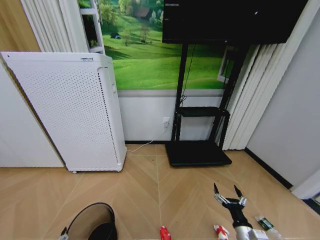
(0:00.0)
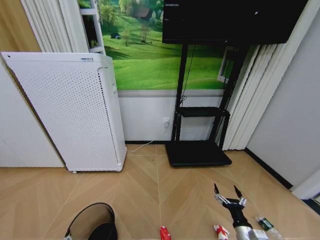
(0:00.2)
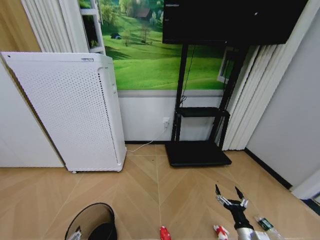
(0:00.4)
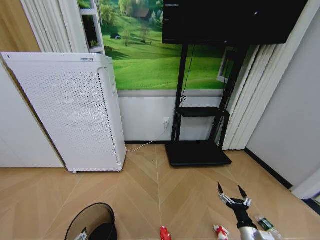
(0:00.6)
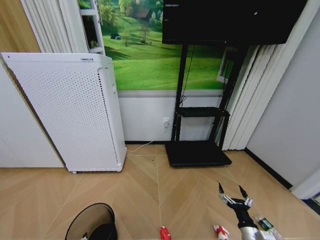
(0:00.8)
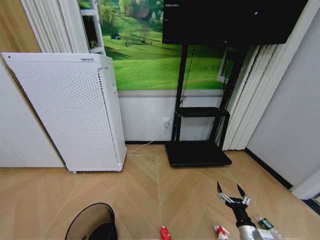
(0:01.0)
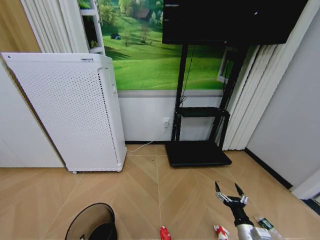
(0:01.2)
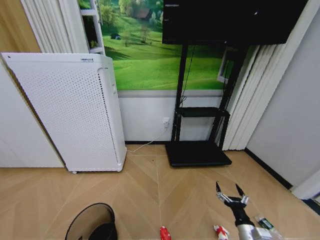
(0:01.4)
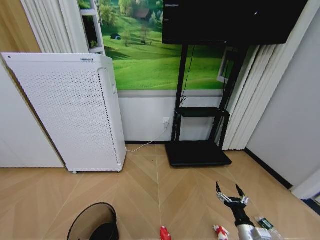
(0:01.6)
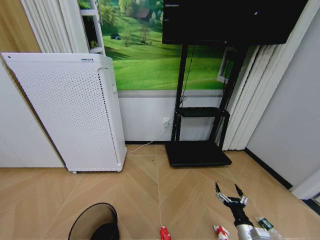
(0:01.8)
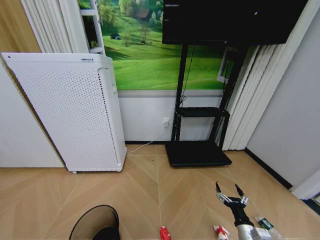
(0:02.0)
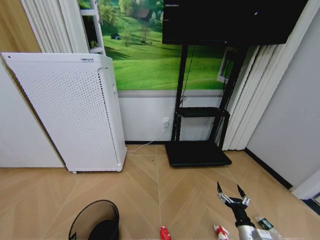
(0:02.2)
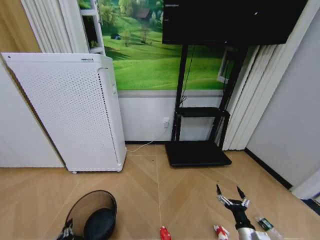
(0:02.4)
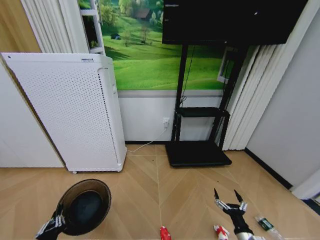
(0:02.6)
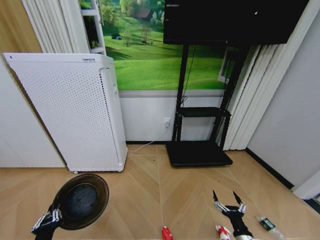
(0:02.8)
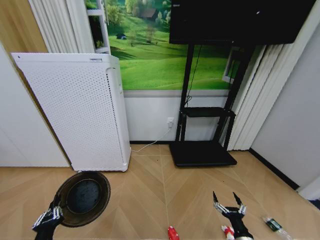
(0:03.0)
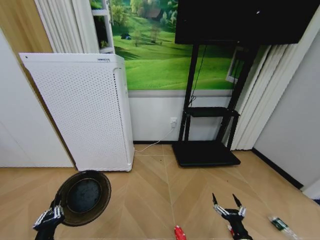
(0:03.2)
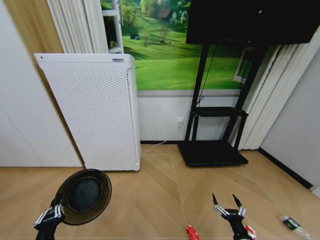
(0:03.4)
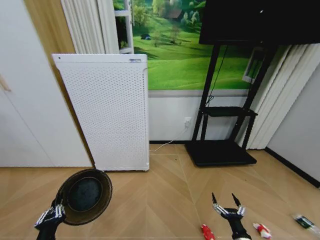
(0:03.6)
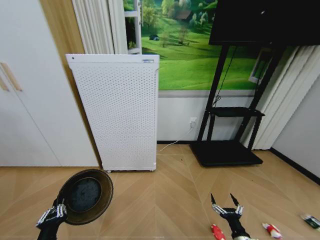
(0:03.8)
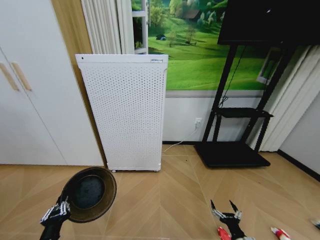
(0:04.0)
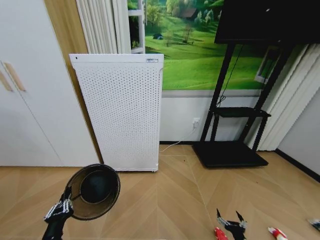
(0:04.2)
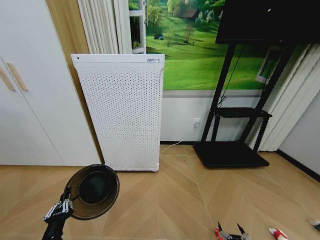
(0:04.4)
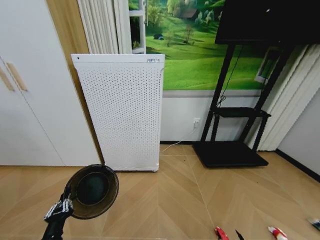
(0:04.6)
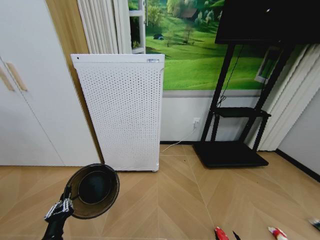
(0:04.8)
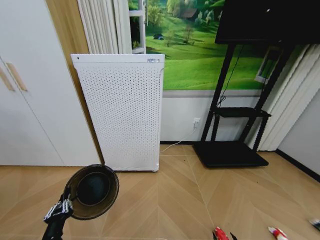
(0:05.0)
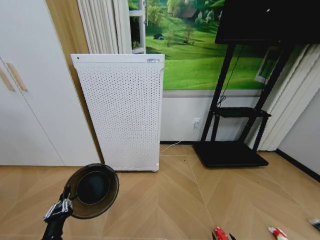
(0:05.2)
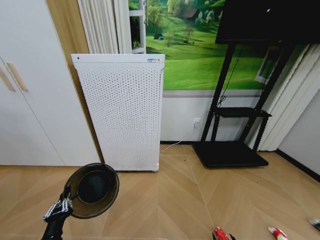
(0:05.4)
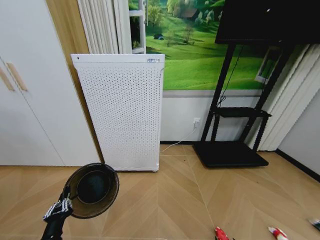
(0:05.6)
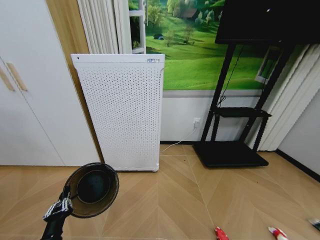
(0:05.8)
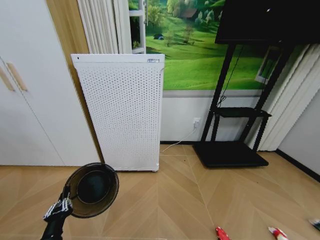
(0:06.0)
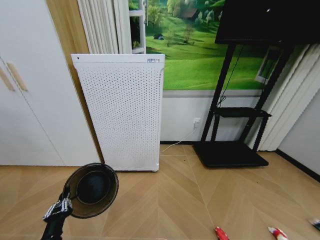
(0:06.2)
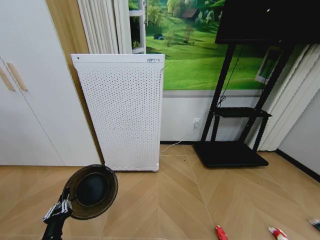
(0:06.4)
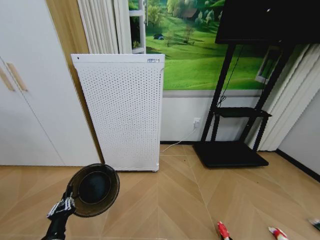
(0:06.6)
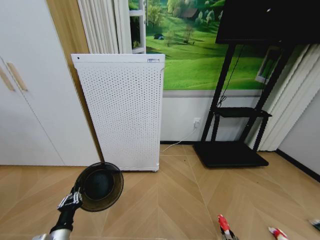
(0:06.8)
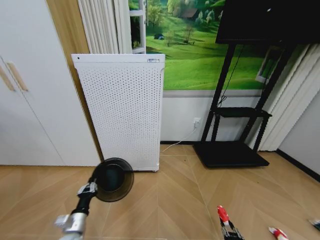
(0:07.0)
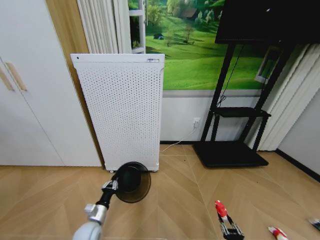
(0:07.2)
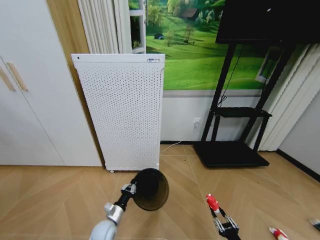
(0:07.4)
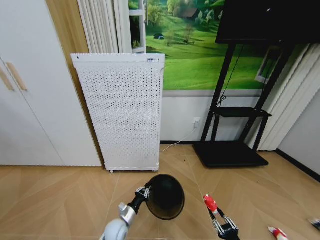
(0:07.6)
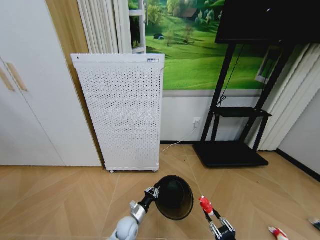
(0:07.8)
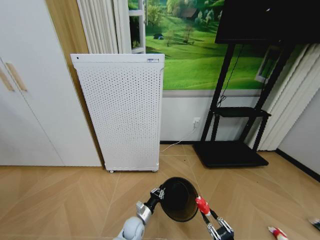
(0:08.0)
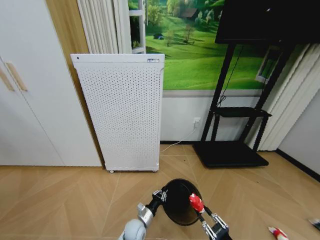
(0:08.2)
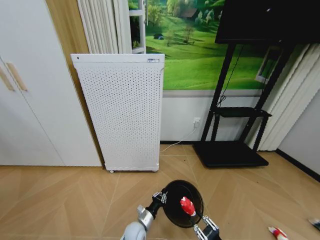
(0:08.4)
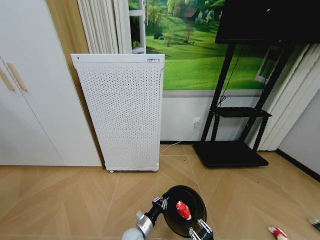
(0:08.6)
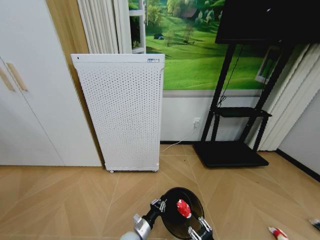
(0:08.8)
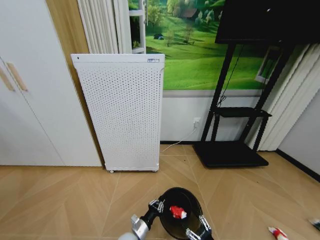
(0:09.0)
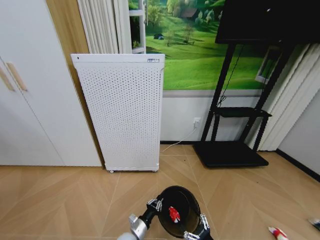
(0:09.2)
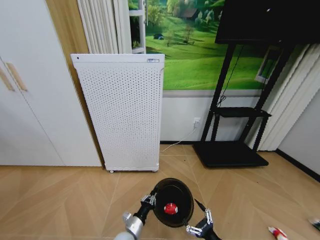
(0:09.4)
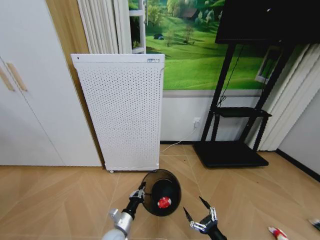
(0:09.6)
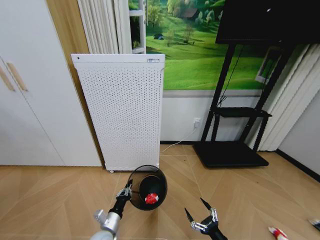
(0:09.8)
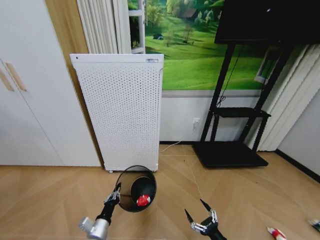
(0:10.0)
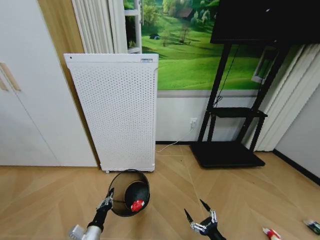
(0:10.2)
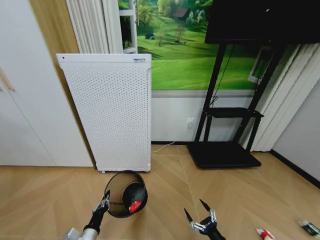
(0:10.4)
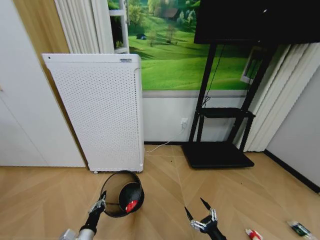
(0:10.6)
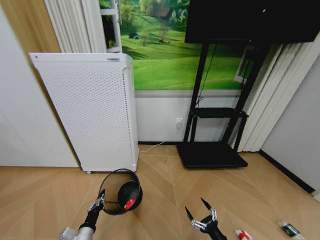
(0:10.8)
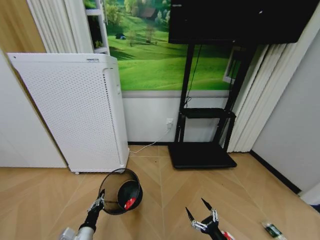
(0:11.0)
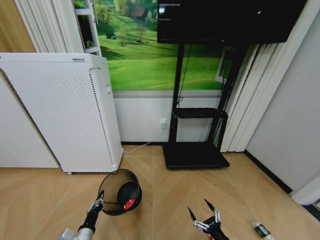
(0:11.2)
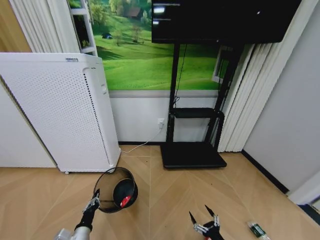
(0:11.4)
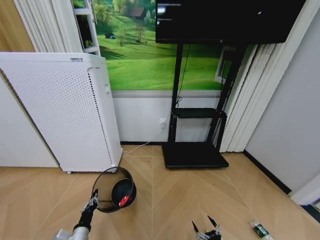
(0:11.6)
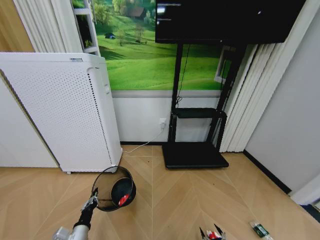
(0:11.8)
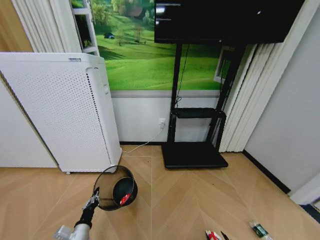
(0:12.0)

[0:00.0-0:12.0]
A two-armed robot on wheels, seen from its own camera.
Task of the whole recording: Pick up the trash bin and place the garbage on the floor into it.
0:00.0 to 0:01.6: The left gripper is displaced downward by roughly 10 cm, and closes its fingers.
0:03.0 to 0:04.4: The right gripper is displaced downward by approximately 10 cm.
0:04.4 to 0:06.0: The right gripper goes some 10 cm downward.
0:06.0 to 0:07.6: The left gripper is displaced forward, downward and to the right by roughly 25 cm. Meanwhile the right gripper shifts roughly 15 cm upward, and closes its fingers.
0:07.6 to 0:09.0: The left gripper shifts some 5 cm to the right. The right gripper shifts about 5 cm to the left.
0:09.0 to 0:10.4: The right gripper opens up; the left gripper heads to the left, upward and backward, covering roughly 20 cm.
0:10.4 to 0:12.0: The right gripper moves downward and to the right, about 15 cm.

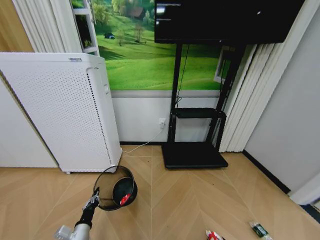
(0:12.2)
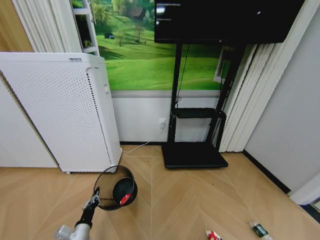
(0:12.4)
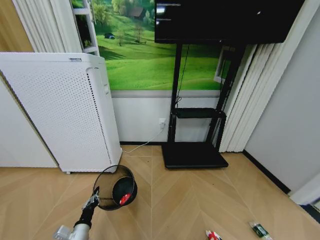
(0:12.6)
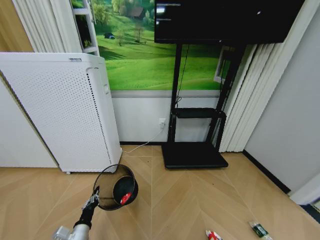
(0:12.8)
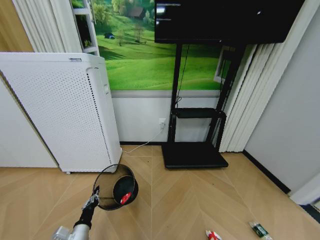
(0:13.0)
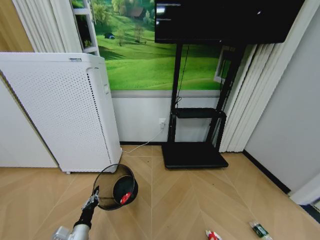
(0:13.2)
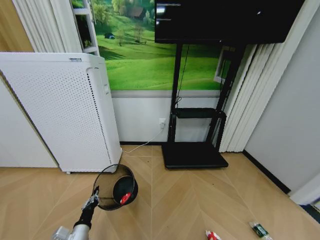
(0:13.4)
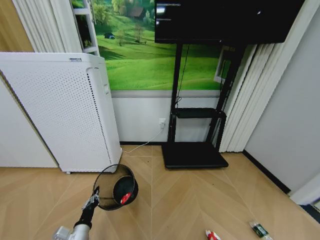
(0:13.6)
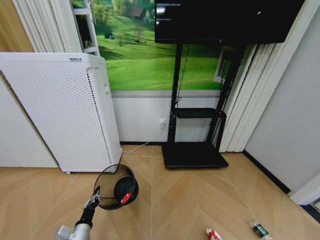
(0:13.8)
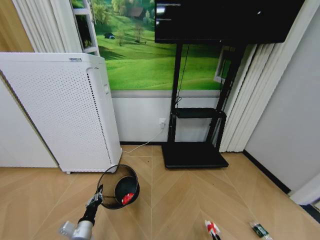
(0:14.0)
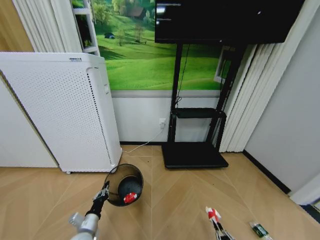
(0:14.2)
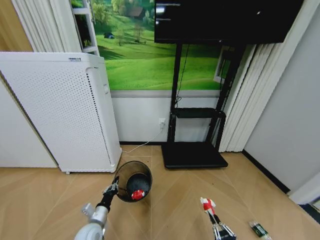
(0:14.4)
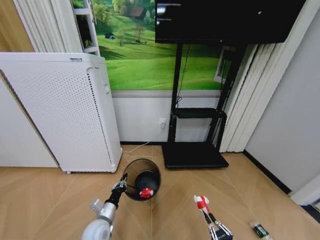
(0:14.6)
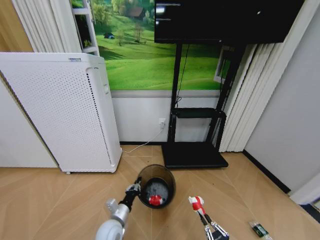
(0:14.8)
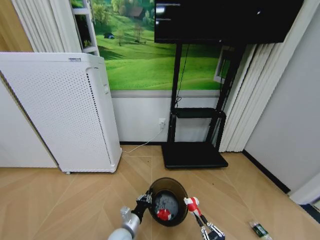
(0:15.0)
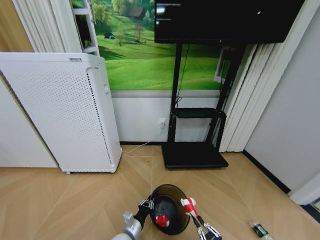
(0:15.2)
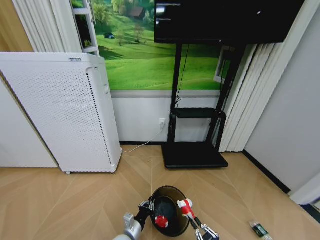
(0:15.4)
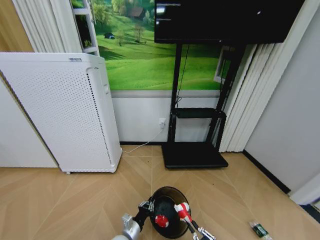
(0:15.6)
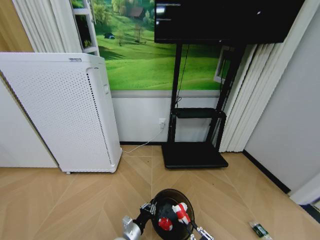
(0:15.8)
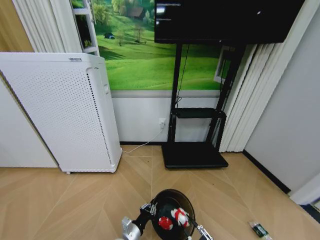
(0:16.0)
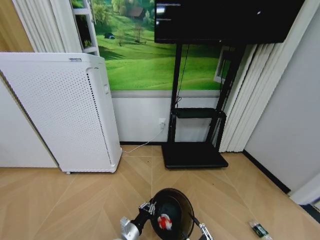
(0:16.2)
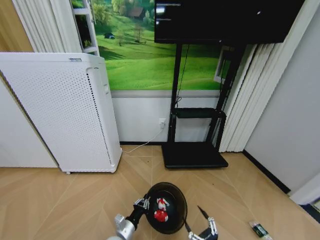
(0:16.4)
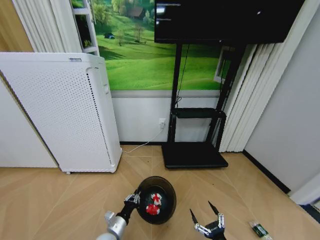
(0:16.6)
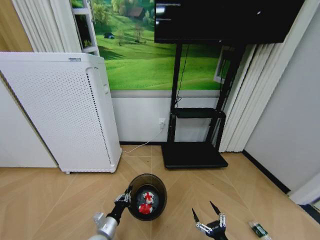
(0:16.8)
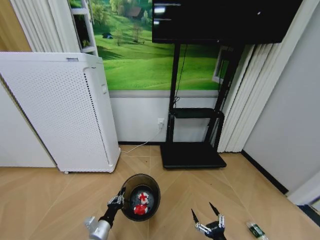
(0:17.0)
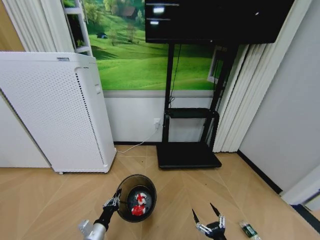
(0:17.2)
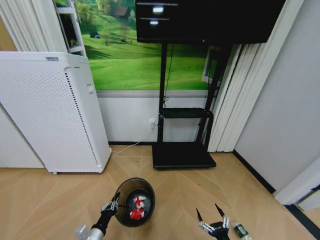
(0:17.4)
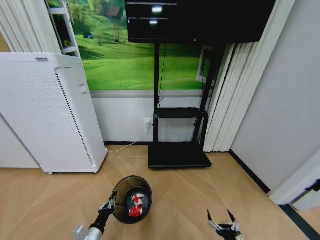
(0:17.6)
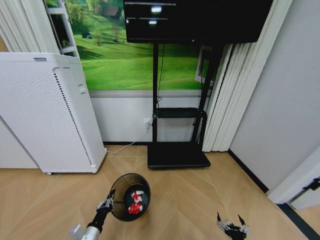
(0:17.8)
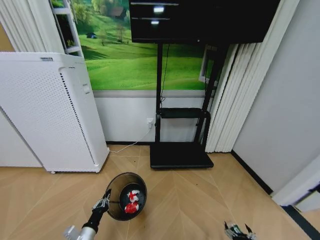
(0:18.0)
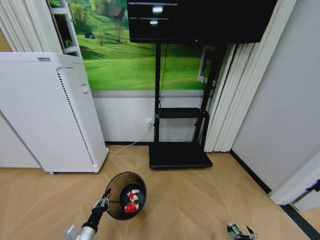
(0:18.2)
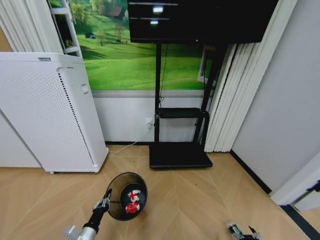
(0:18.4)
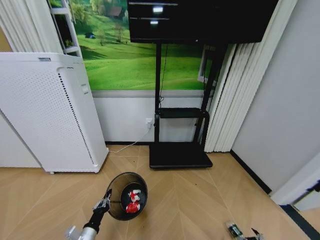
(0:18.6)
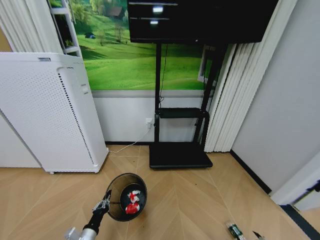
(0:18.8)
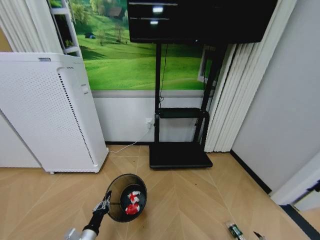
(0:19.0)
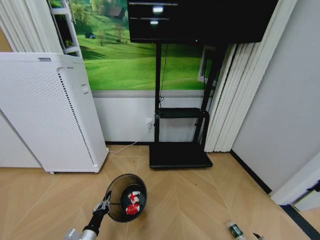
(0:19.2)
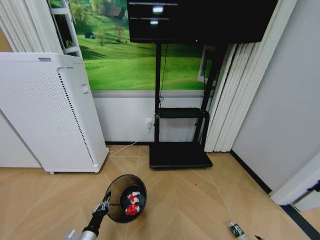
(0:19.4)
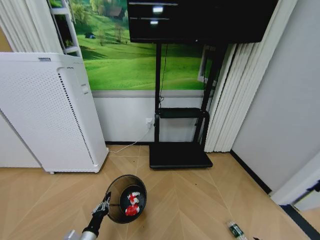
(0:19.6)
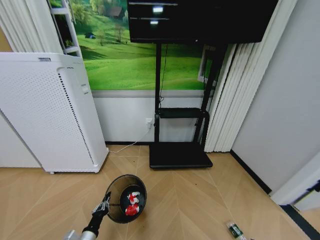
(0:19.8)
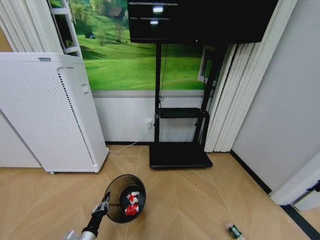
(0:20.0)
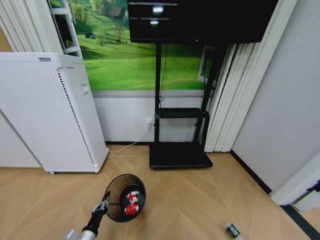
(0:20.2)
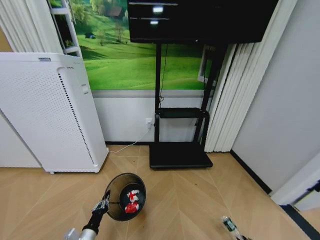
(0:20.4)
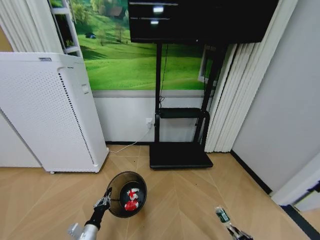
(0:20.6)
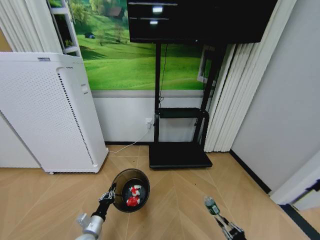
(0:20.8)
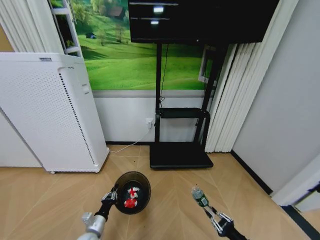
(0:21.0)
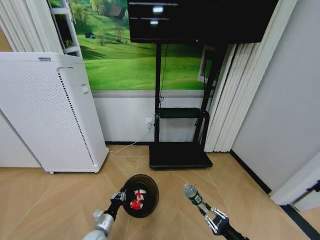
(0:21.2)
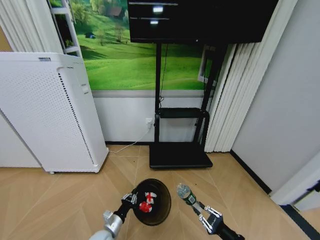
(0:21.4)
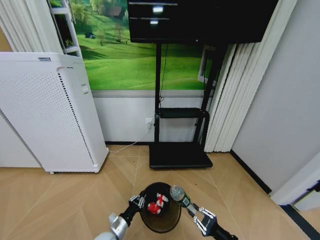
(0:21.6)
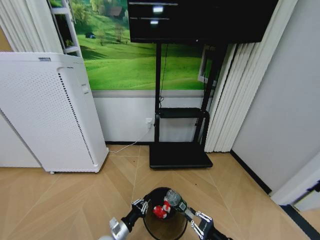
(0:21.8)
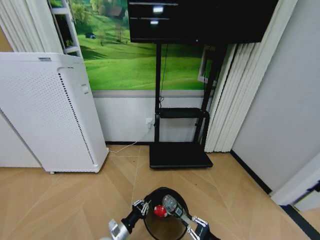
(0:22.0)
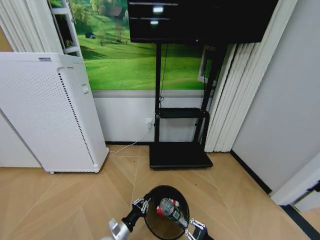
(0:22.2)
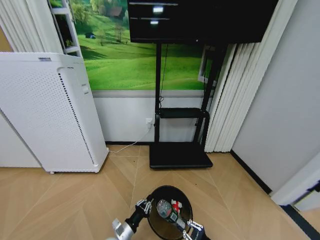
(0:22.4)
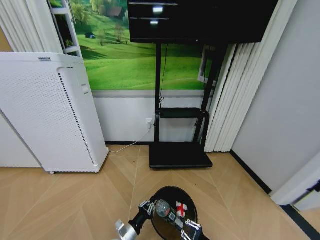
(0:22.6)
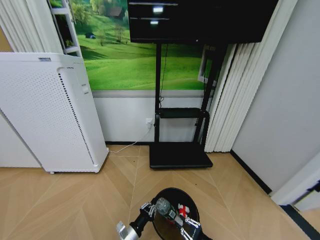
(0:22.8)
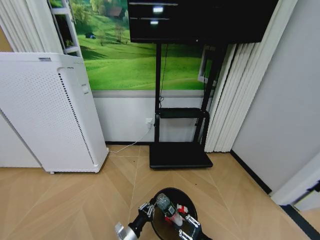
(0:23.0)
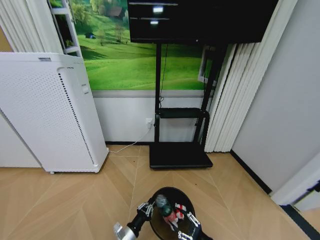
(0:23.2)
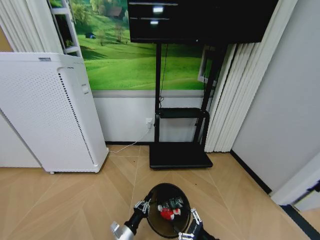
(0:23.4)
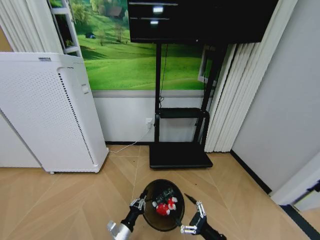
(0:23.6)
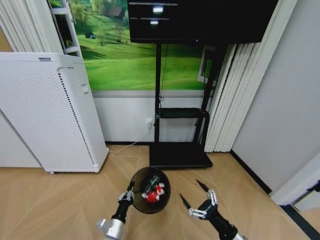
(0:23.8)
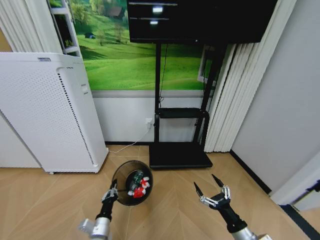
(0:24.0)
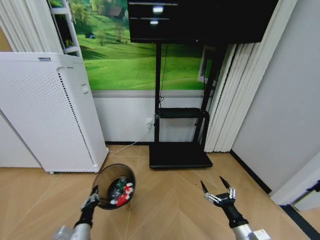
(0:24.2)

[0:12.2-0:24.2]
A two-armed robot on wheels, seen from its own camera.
Task of the whole recording: Pick up the trash bin and place the garbage on the floor into it.
0:13.8 to 0:15.2: The right gripper goes approximately 15 cm upward. Meanwhile the left gripper shifts some 15 cm to the right.
0:15.2 to 0:16.6: The right gripper opens. Meanwhile the left gripper heads to the left, covering about 5 cm.
0:16.6 to 0:18.2: The right gripper heads to the right and downward, covering about 20 cm. The left gripper moves to the left, some 10 cm.
0:18.2 to 0:19.8: The right gripper travels to the right by about 10 cm.
0:19.8 to 0:21.2: The right gripper heads upward and to the left, covering approximately 25 cm, and closes, while the left gripper shifts about 5 cm forward.
0:21.2 to 0:22.6: The right gripper shifts roughly 5 cm to the left; the left gripper is displaced to the right by roughly 10 cm.
0:22.6 to 0:24.2: The left gripper shifts approximately 15 cm to the left and upward. The right gripper shifts by some 5 cm, and opens up.
